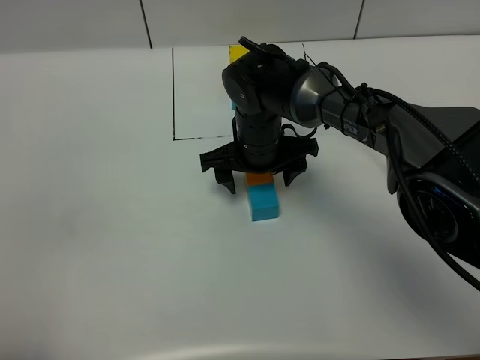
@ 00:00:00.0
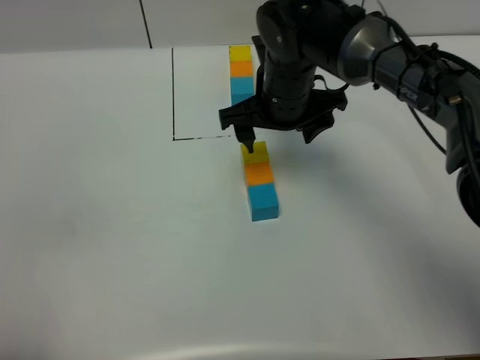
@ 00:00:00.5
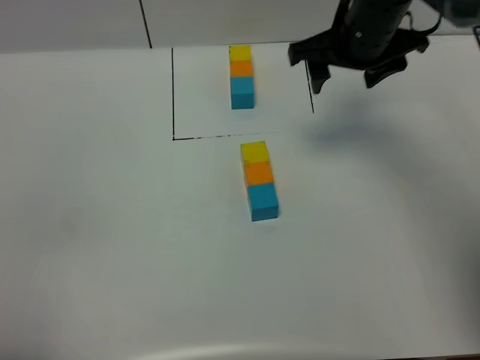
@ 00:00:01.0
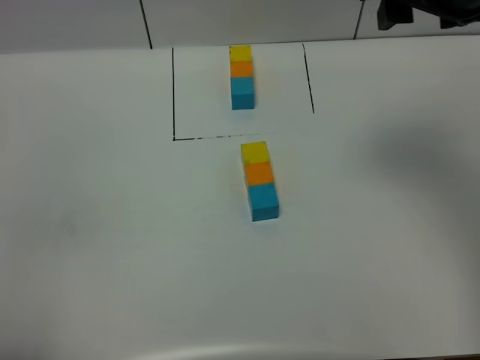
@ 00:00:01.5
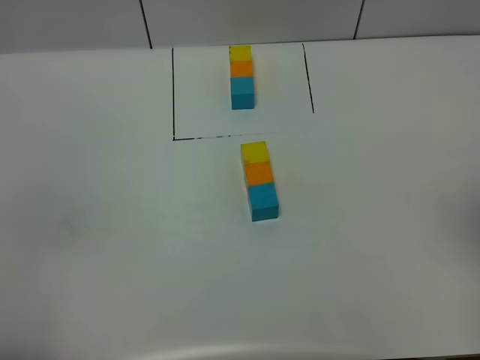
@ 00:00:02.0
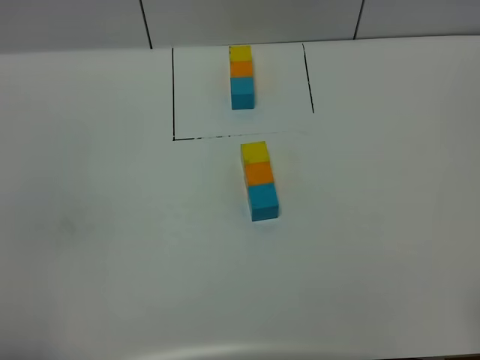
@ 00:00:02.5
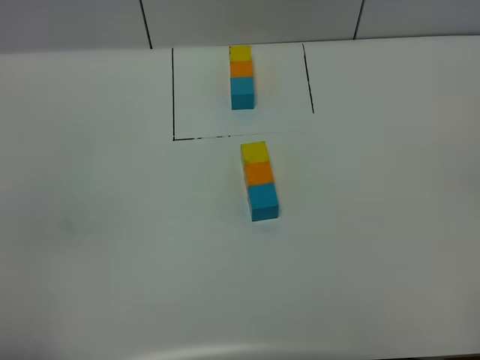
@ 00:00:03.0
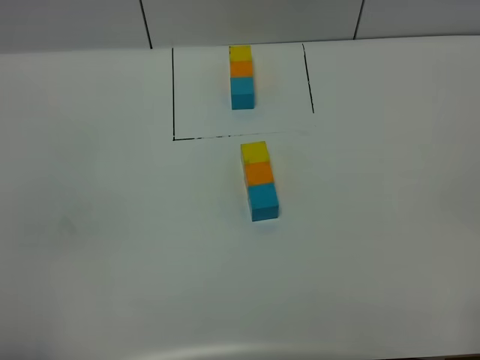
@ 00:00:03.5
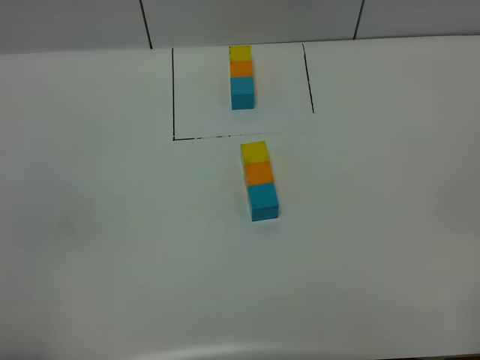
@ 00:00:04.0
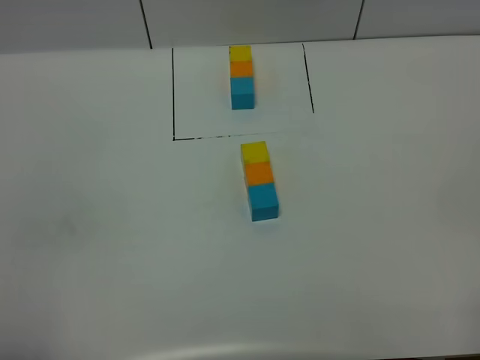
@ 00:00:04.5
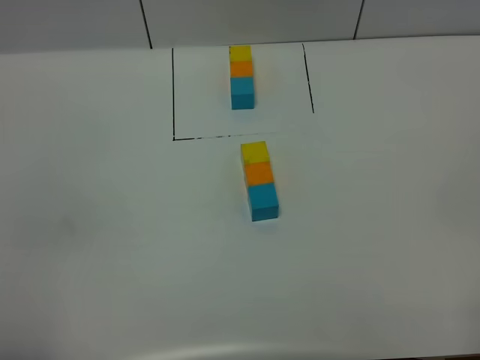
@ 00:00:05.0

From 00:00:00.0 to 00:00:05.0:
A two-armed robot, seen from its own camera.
Task of the whole recording: According to the building block template in front, assemble the scattered blocks together.
From 00:00:00.0 to 00:00:02.5: The right gripper moves backward, to the right and upward, roughly 50 cm.
